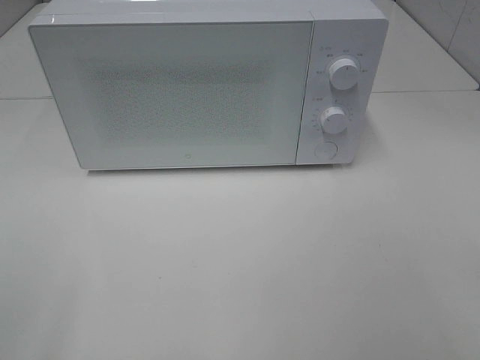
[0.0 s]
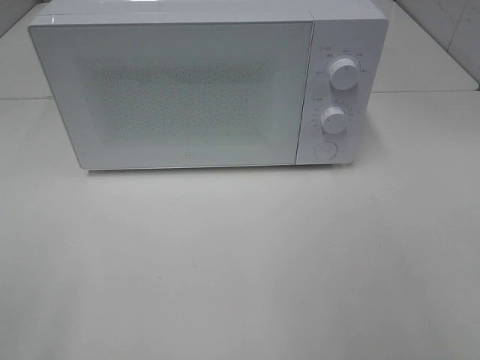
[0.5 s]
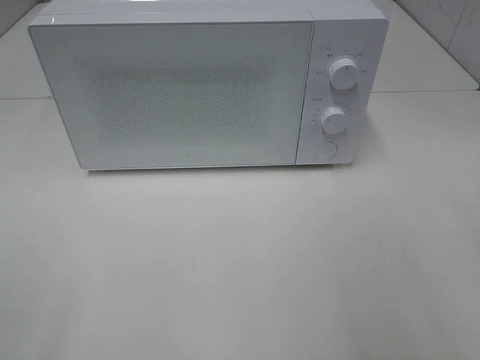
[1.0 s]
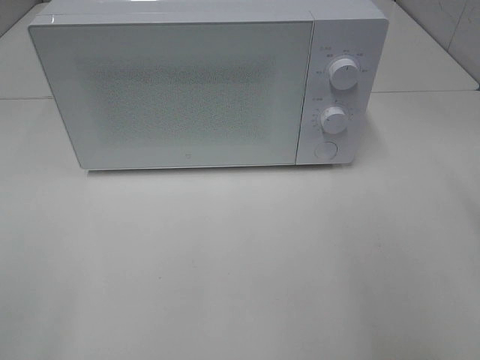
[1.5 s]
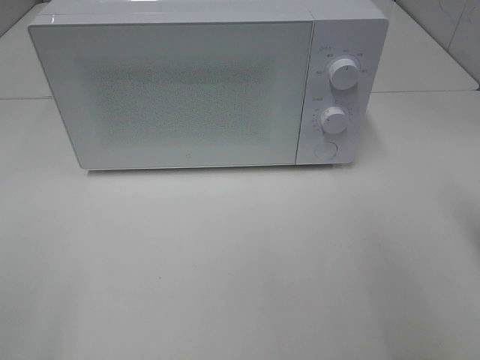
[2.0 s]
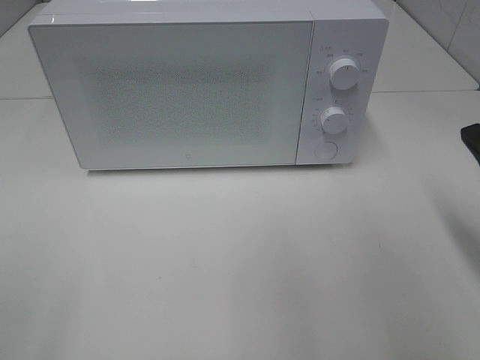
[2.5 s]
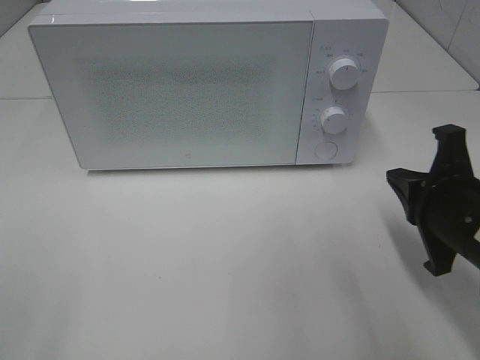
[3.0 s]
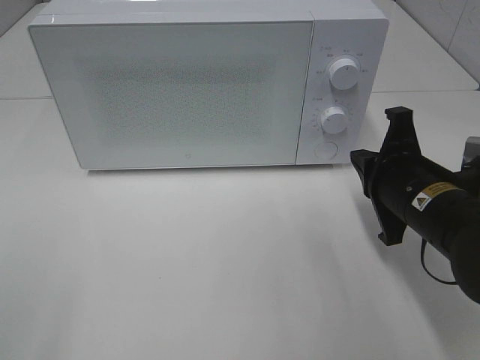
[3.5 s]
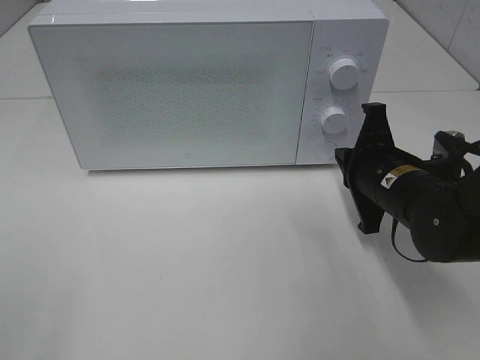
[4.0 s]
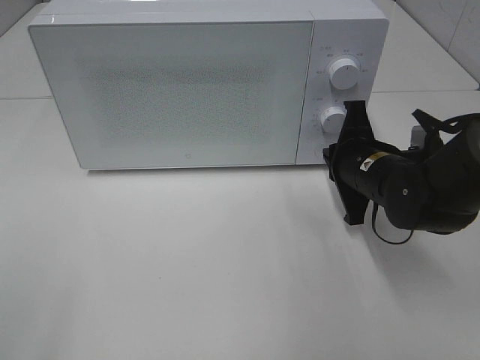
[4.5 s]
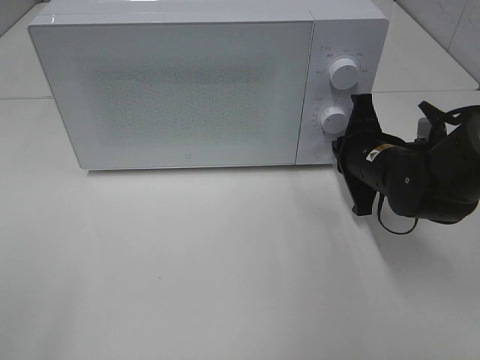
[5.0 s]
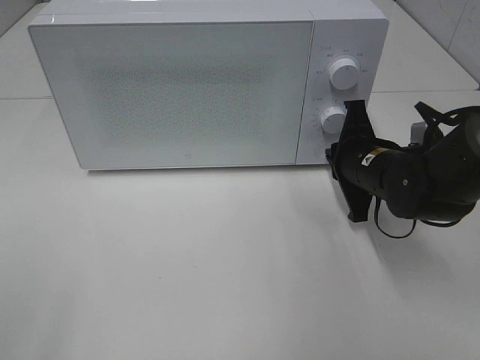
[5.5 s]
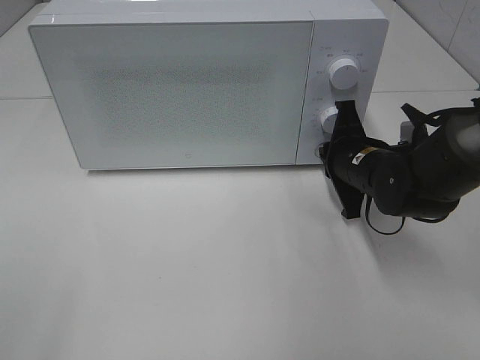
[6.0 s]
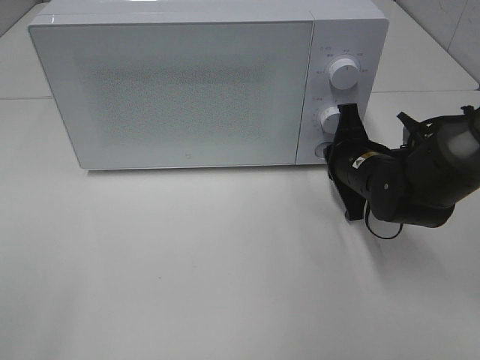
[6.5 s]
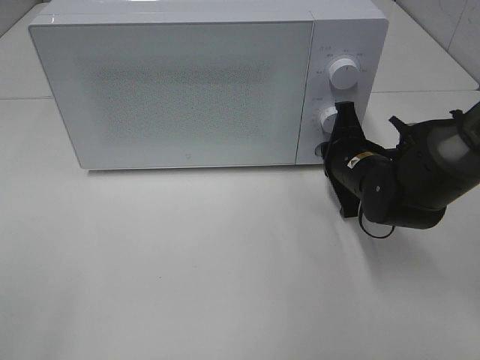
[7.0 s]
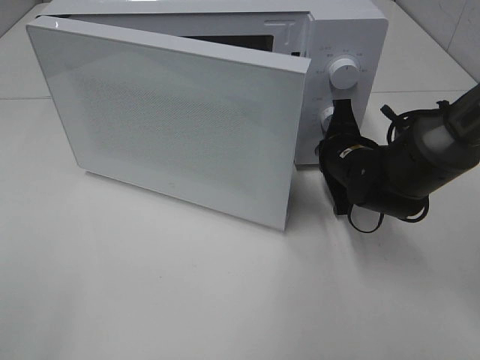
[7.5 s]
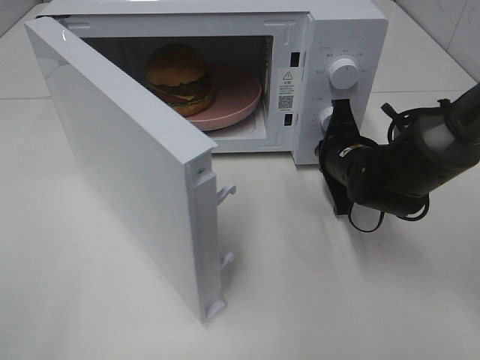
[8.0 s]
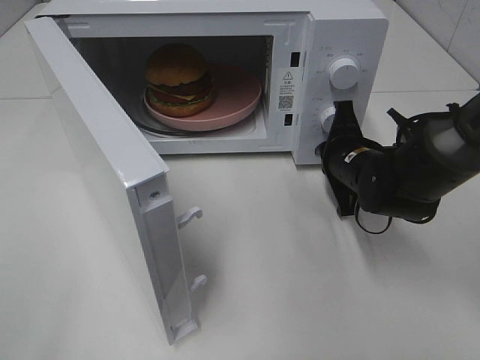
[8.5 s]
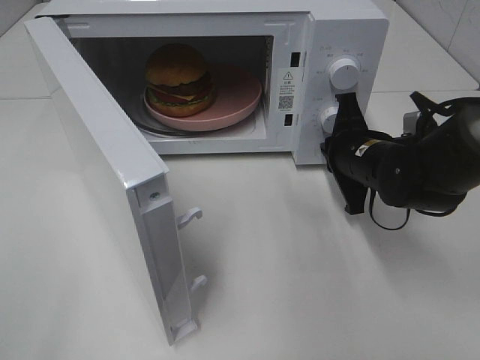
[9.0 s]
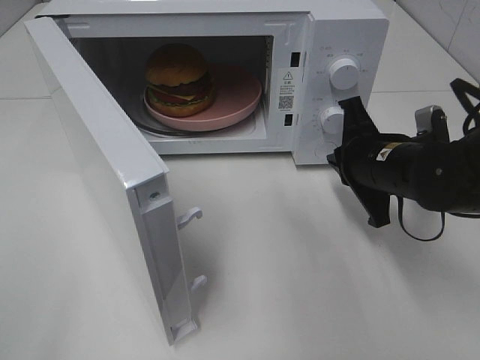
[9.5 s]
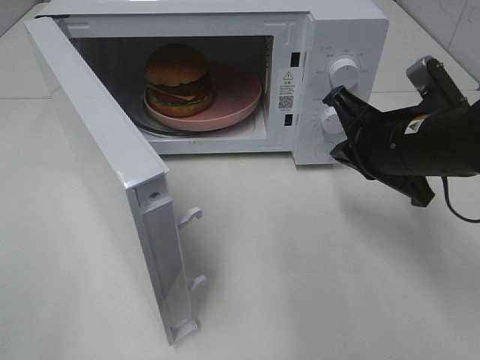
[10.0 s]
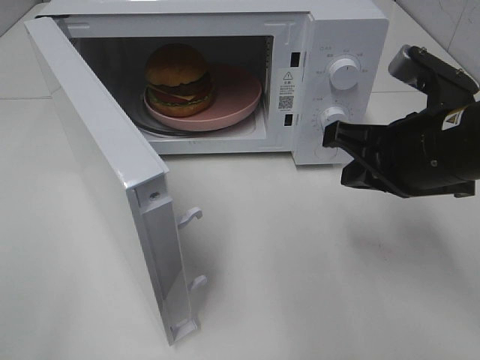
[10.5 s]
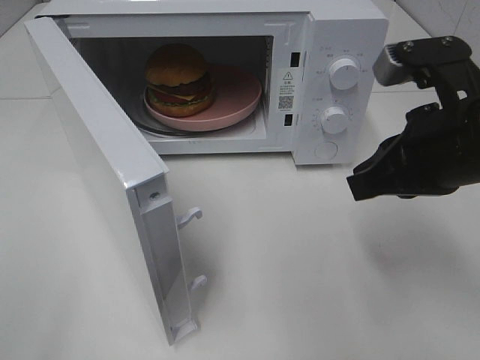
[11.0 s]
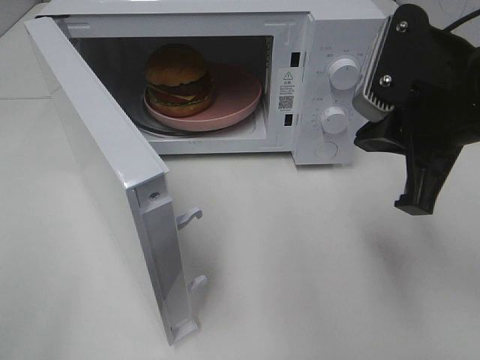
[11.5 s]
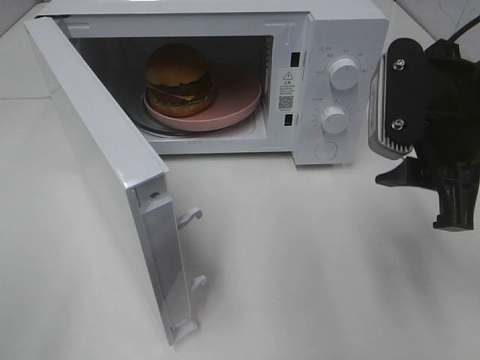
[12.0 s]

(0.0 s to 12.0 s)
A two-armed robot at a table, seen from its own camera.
Task of the whole recording: Heat the burger.
Step, 0.0 s - 9.0 s: Right hand: press the switch.
2.0 s - 4.0 s: The right gripper shifts approximately 20 cm forward, to the left and downward.
4.0 s - 6.0 s: The right gripper heads forward, covering some 5 cm.
8.0 s - 10.0 s: The right gripper travels upward and backward by about 10 cm.
10.0 s - 12.0 s: The right gripper is displaced upward and backward by some 10 cm, and opens up.

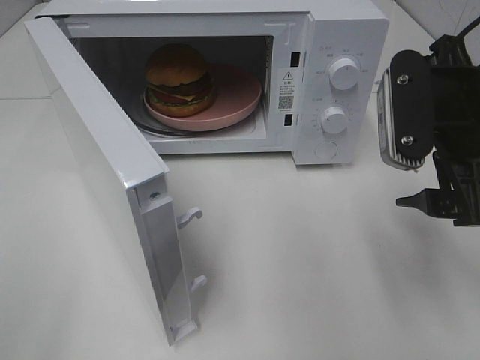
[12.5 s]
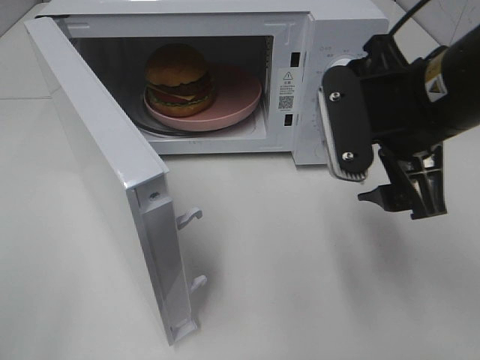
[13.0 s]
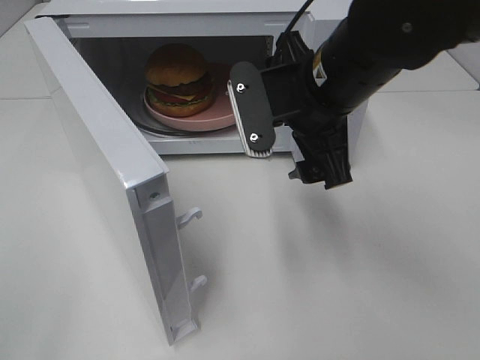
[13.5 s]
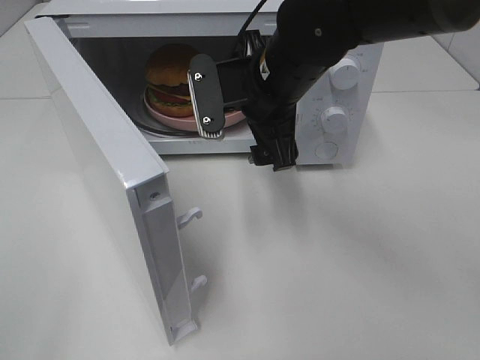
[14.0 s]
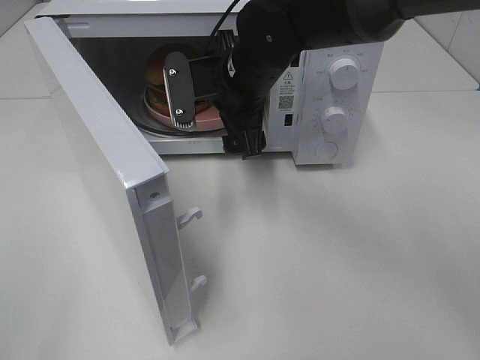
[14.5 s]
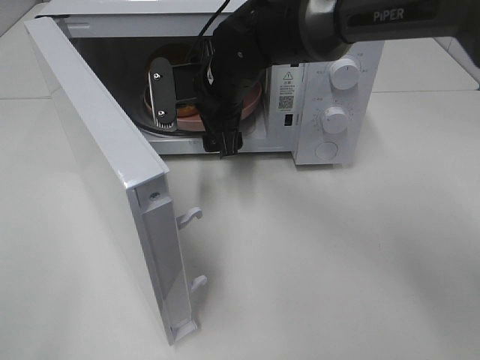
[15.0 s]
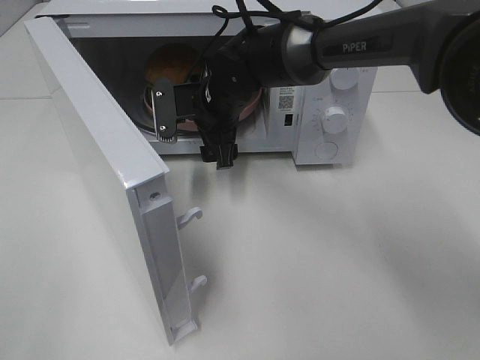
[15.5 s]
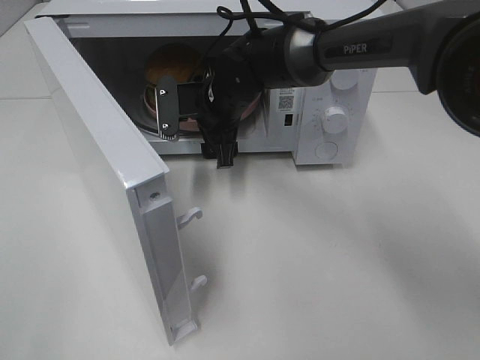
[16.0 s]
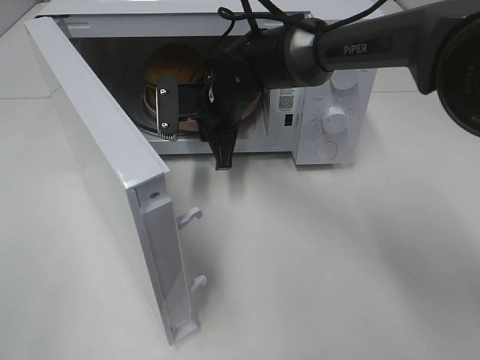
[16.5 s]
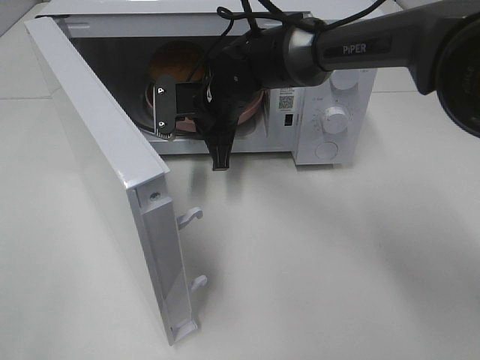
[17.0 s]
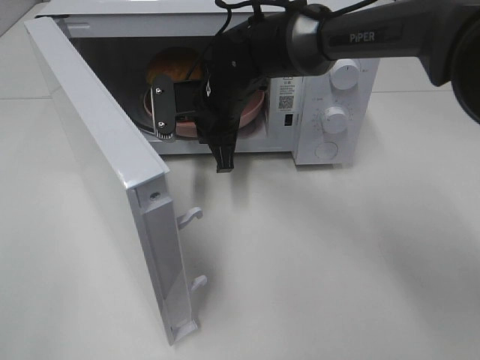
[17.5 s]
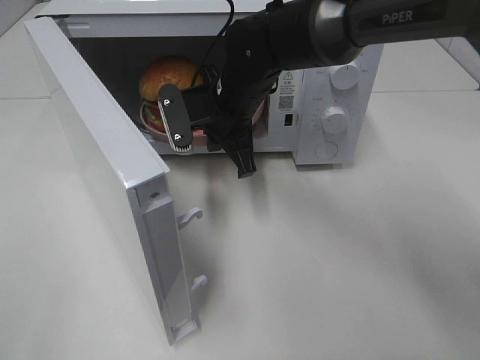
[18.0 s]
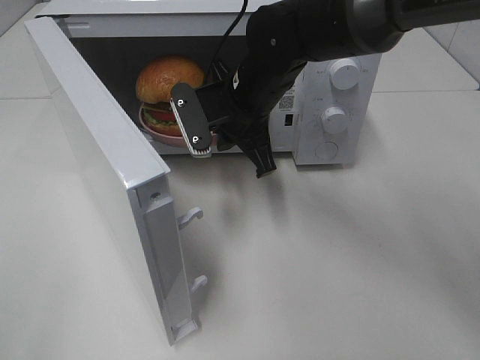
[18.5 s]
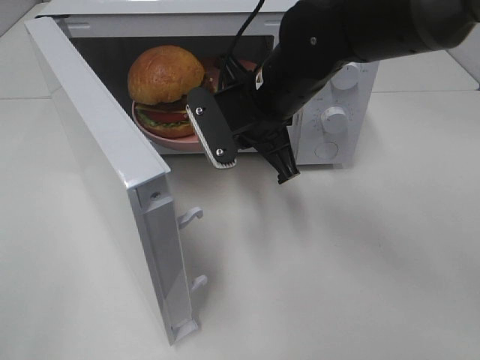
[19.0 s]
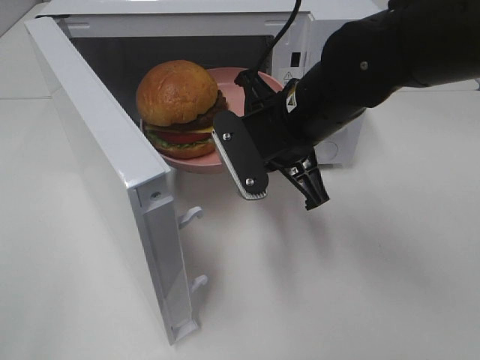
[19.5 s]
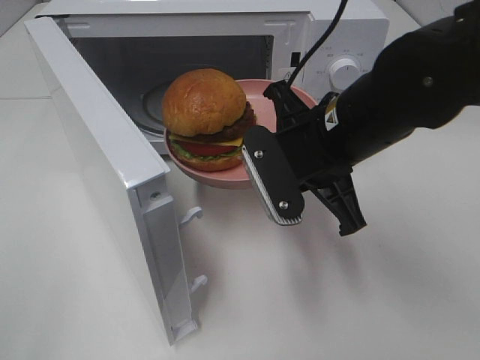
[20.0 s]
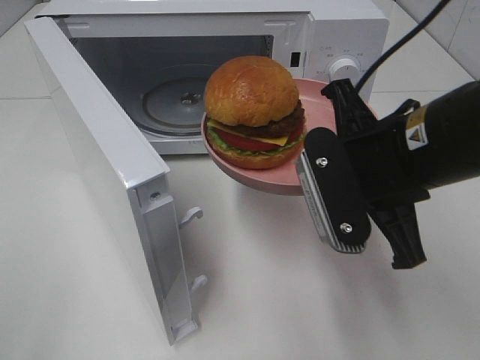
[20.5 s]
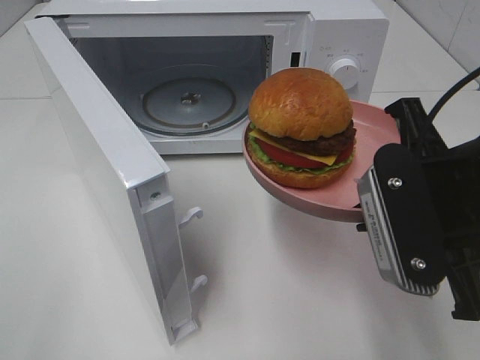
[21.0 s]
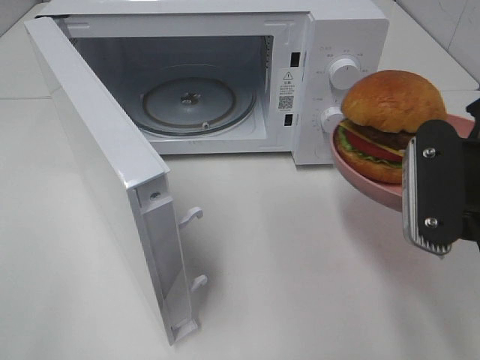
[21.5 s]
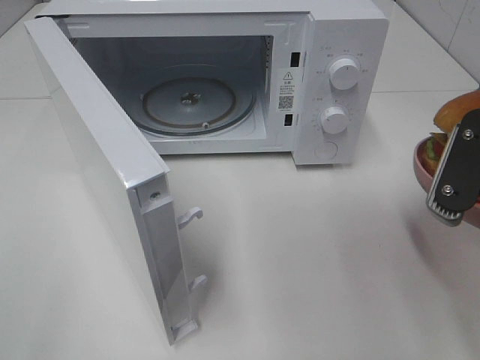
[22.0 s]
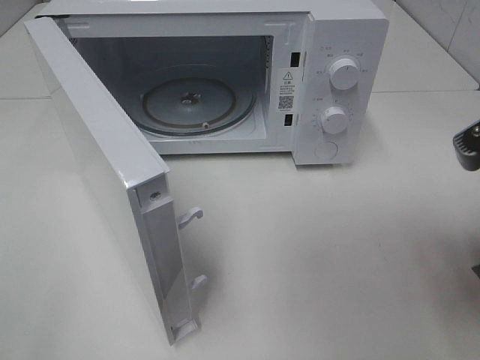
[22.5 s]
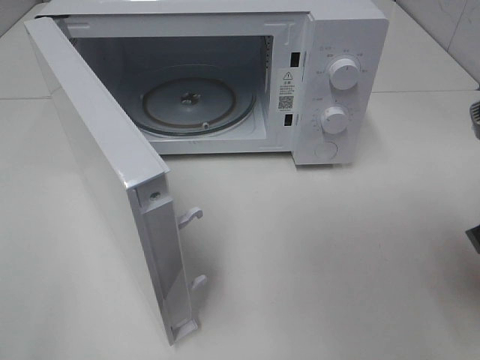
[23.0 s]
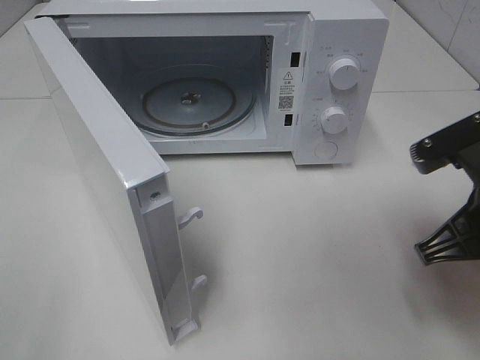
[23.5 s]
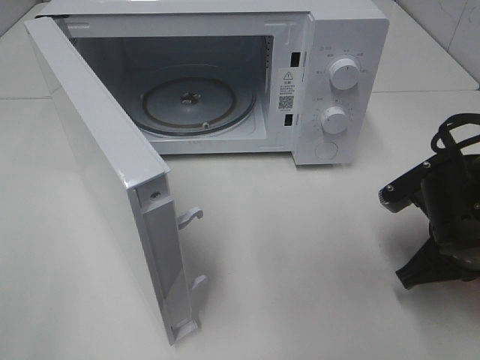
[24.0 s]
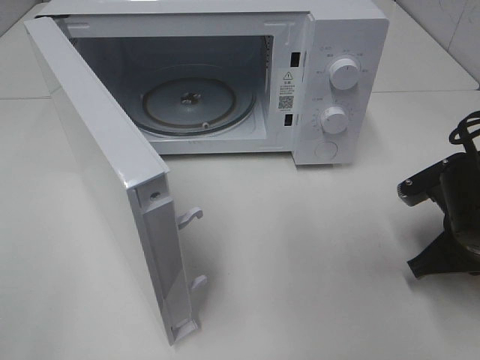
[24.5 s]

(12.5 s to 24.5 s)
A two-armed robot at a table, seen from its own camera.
Task of the whole recording: Heat the burger.
Step, 12.5 s - 16.5 s: Right hand: grab the plate with the hamburger.
12.5 s - 14.5 s: The right gripper shifts approximately 25 cm to the left and forward.
14.5 s - 16.5 s: The right gripper shifts about 5 cm downward, and closes up.
16.5 s - 18.5 s: The right gripper is displaced backward by about 5 cm.
18.5 s - 20.5 s: The right gripper heads backward and to the right, covering some 20 cm.
20.5 s - 22.5 s: The right gripper goes roughly 10 cm to the right and backward.
22.5 s - 24.5 s: The right gripper moves downward and forward, roughly 15 cm.

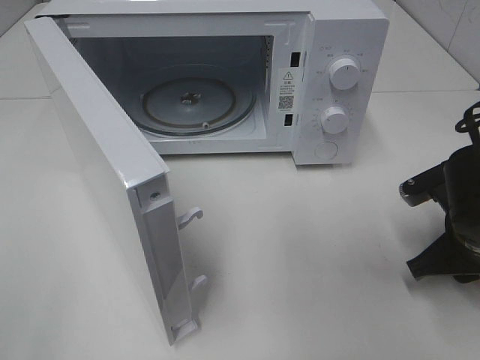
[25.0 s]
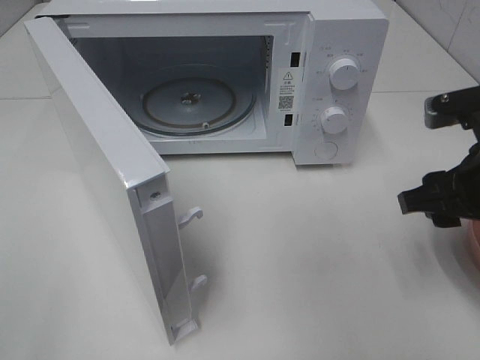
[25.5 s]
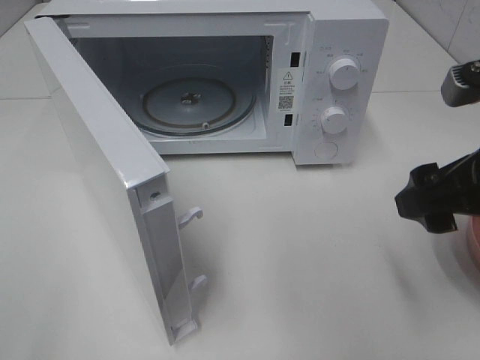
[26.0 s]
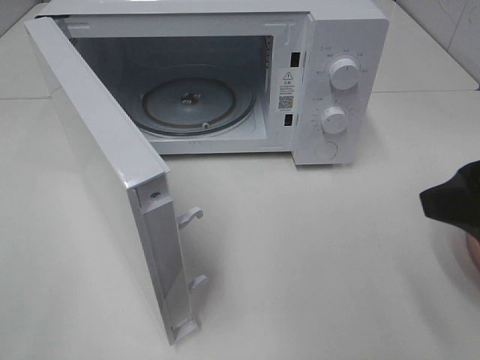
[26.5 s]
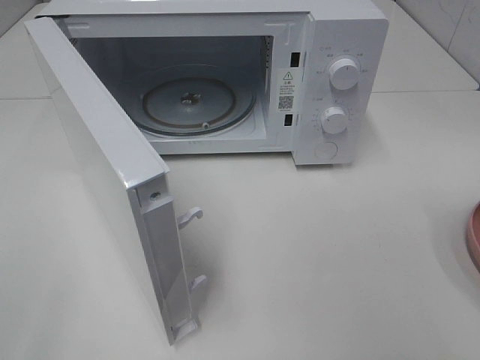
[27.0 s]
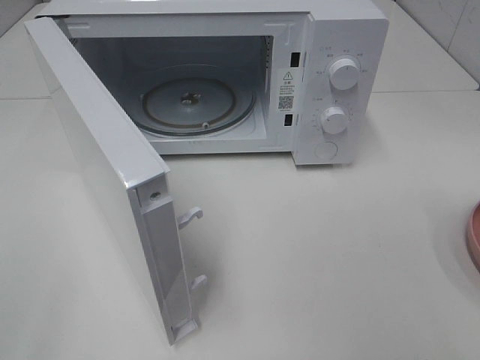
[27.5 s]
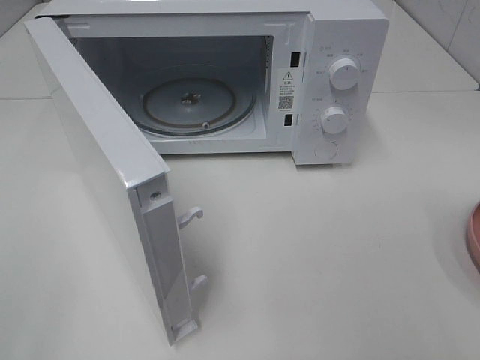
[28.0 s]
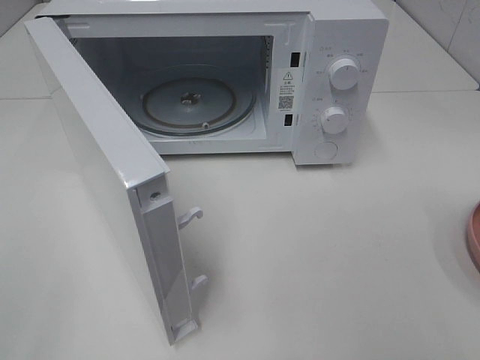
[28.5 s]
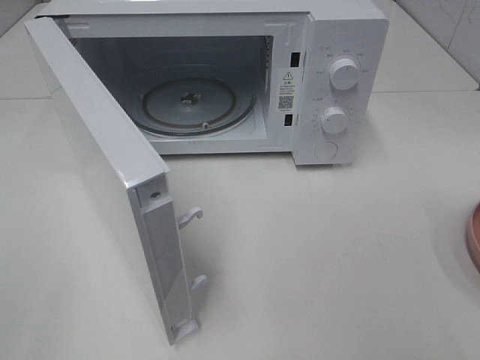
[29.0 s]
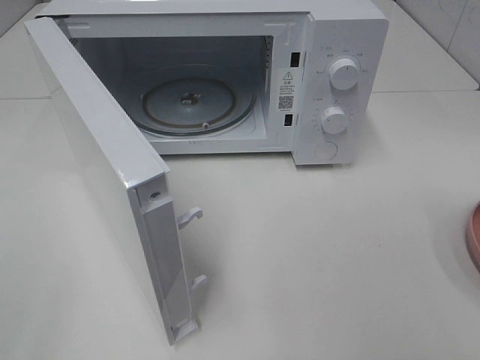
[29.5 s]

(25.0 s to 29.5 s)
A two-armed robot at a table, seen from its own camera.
Task of the whole recording: Heat the burger.
25.0 s - 27.0 s: The right gripper is displaced upward and backward by roughly 25 cm, and opens its fingers.
